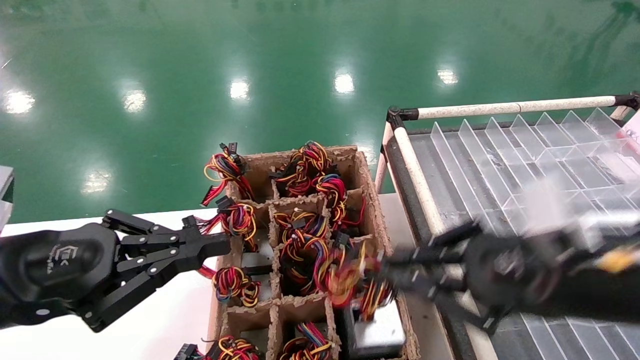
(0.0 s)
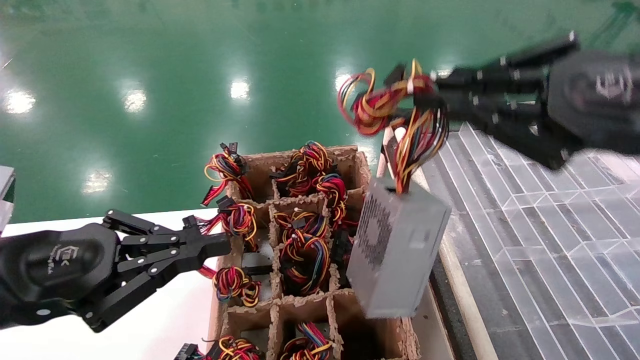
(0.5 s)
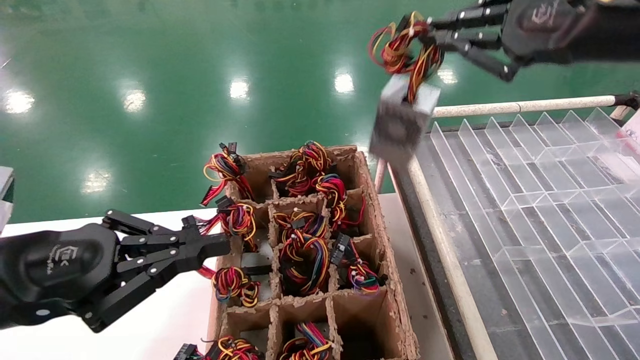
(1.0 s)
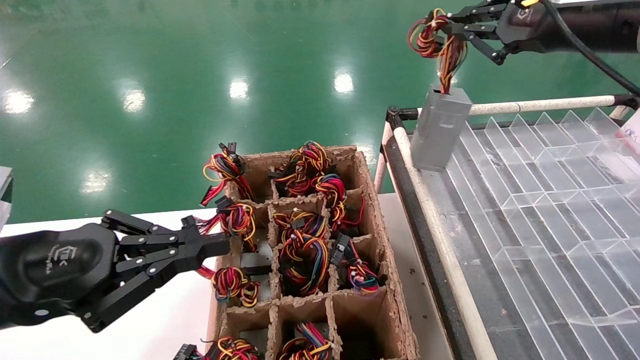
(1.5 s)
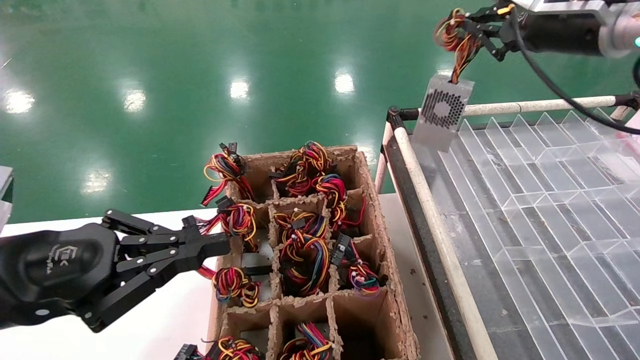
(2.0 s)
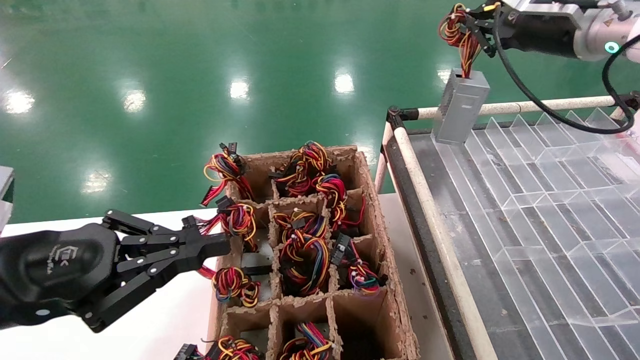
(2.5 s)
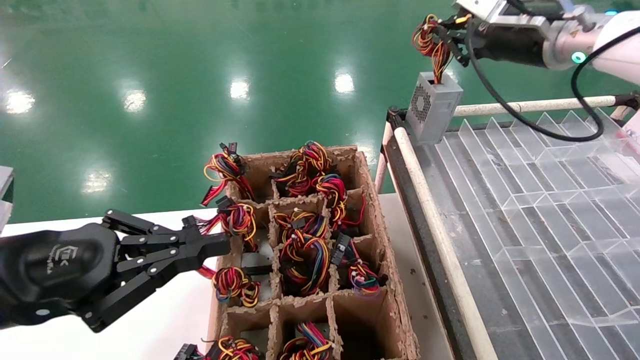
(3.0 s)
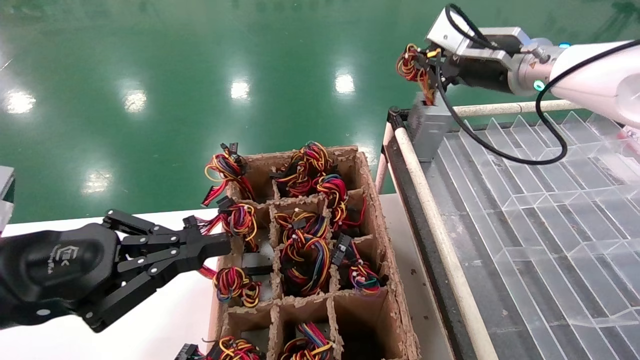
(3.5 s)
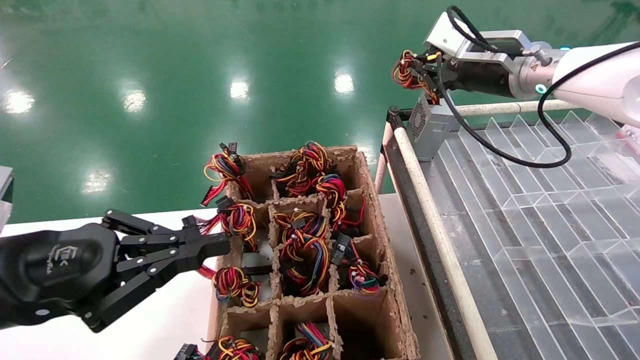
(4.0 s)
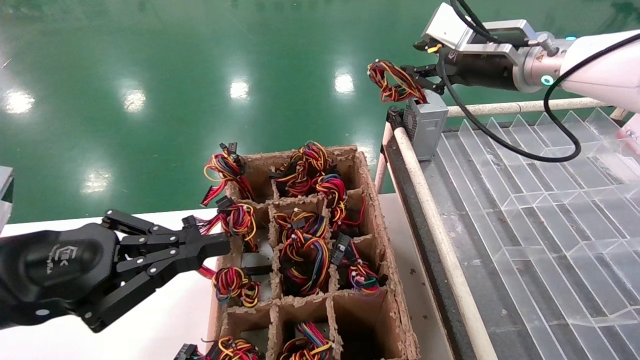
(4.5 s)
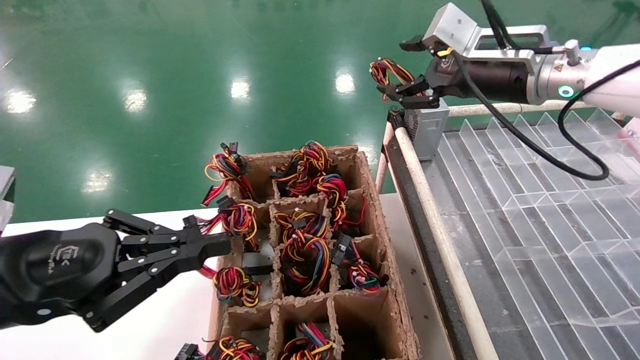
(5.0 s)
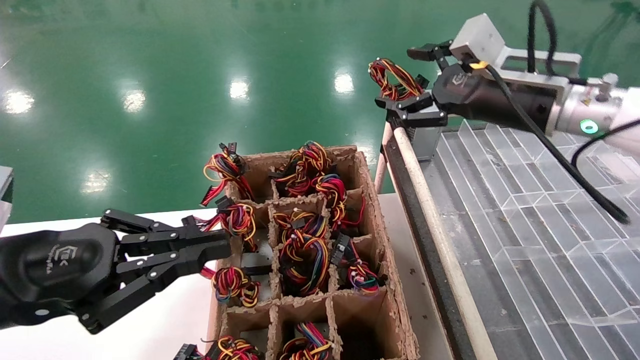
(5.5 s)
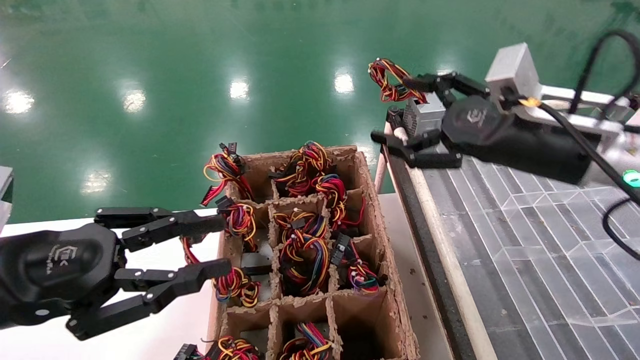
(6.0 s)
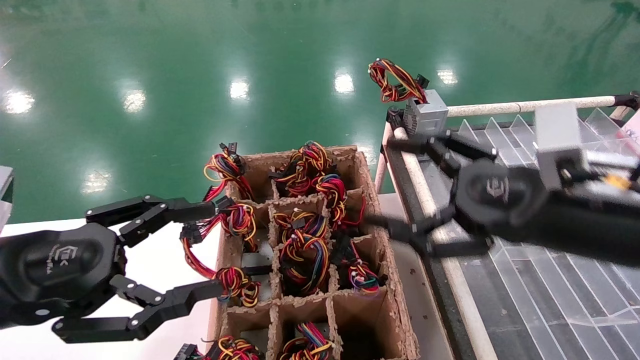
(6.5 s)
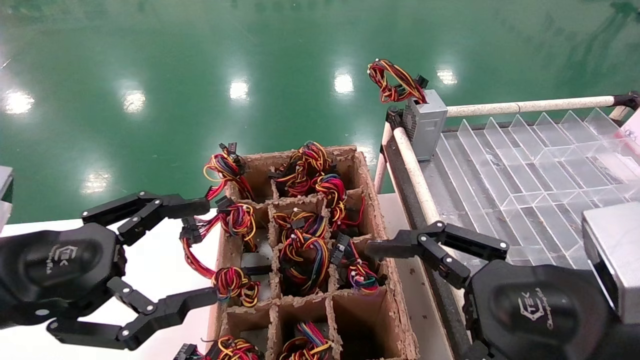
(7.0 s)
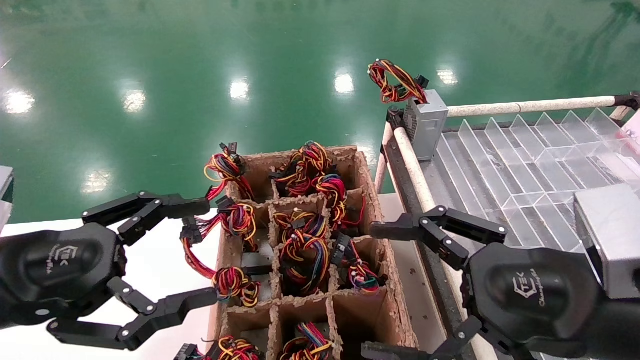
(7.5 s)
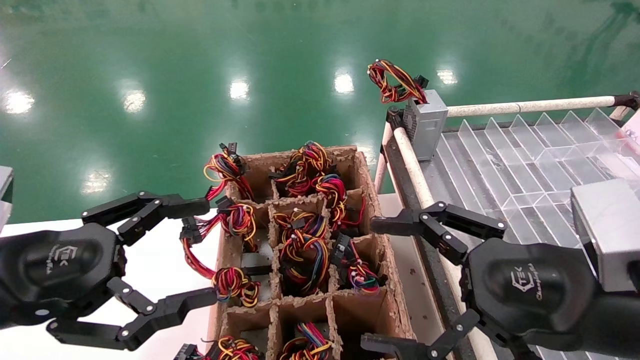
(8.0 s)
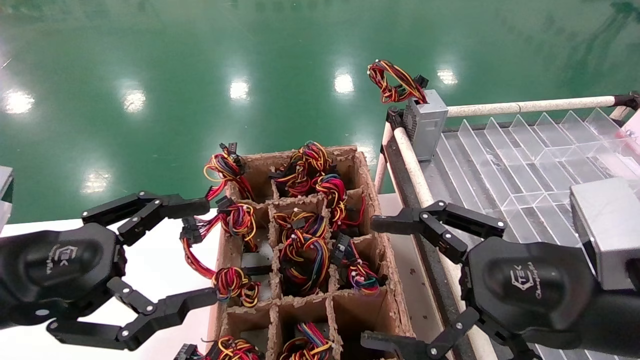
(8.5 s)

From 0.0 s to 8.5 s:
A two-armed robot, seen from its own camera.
Step, from 0.0 s to 4.5 s: Place the main unit power supply in the designated area.
From 0.0 s to 2.0 s: The right gripper travels upward and forward by roughly 25 cm.
From 2.0 s to 4.0 s: The right gripper is displaced to the left, forward and downward by approximately 10 cm.
From 4.0 s to 6.5 s: The left gripper opens; the right gripper goes about 25 cm backward and downward, and opens its fingers.
From 6.5 s to 8.5 s: The right gripper travels backward by roughly 5 cm.
